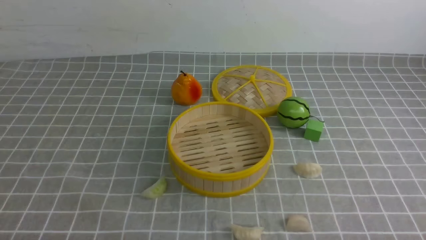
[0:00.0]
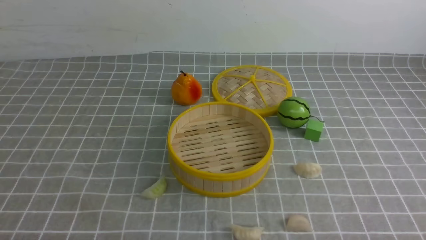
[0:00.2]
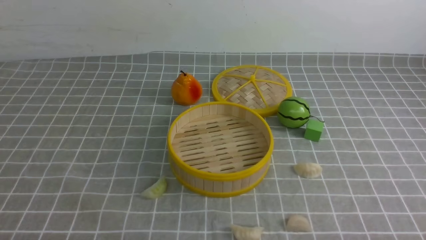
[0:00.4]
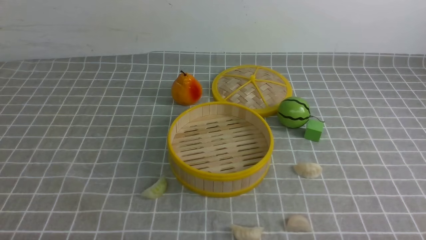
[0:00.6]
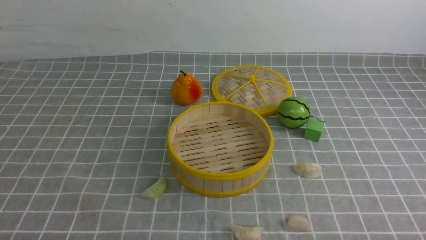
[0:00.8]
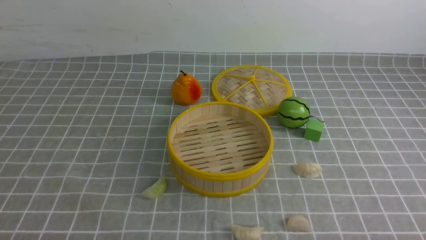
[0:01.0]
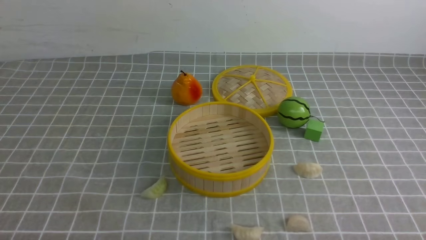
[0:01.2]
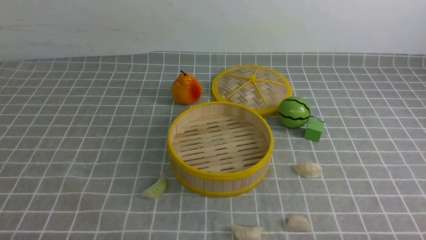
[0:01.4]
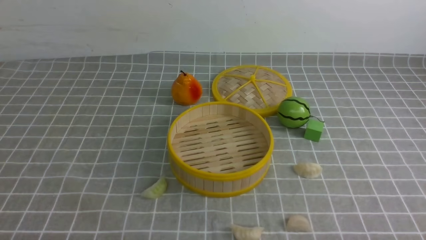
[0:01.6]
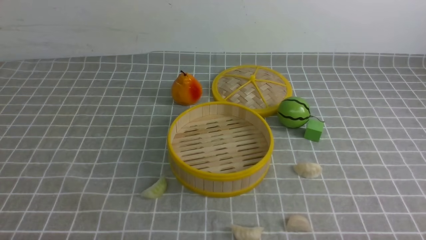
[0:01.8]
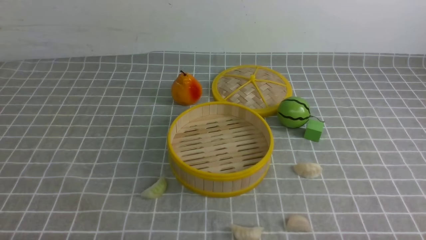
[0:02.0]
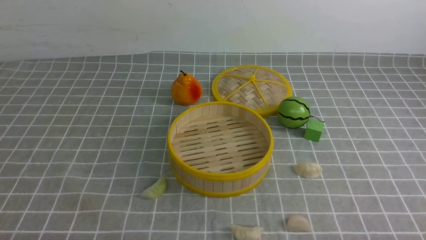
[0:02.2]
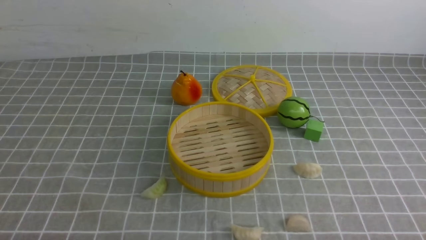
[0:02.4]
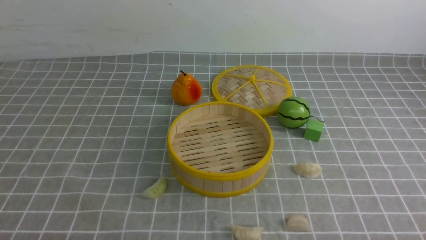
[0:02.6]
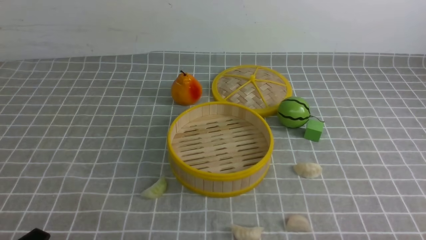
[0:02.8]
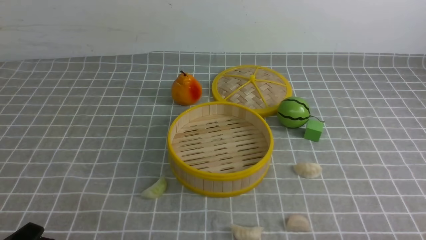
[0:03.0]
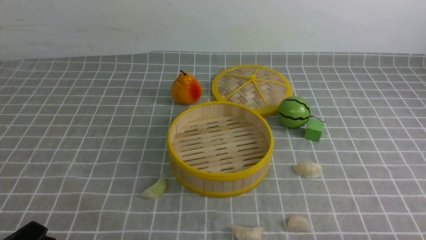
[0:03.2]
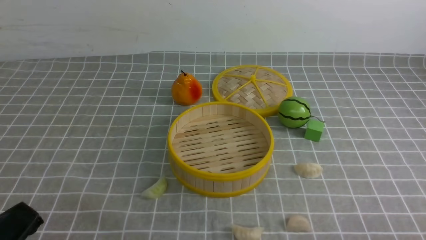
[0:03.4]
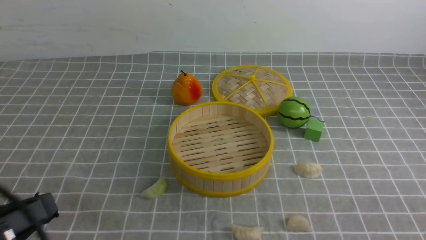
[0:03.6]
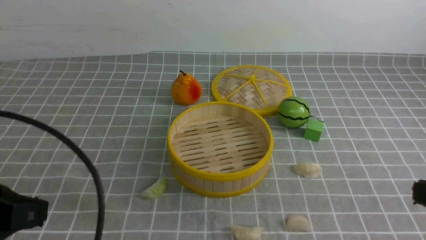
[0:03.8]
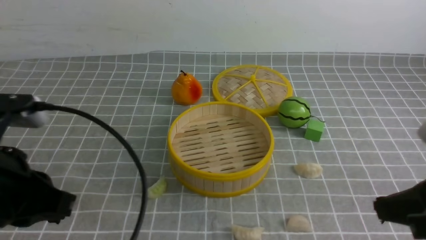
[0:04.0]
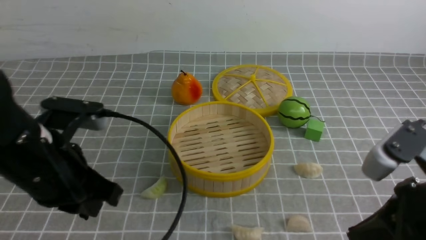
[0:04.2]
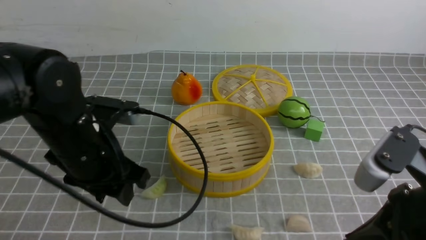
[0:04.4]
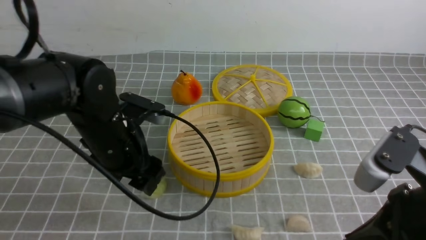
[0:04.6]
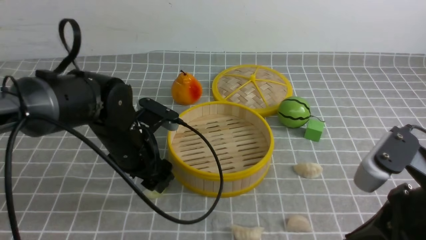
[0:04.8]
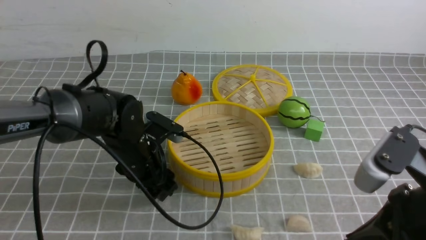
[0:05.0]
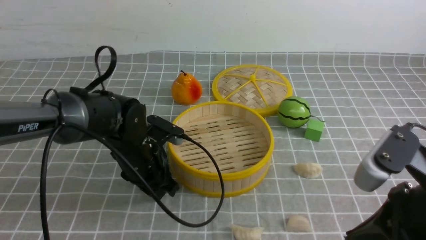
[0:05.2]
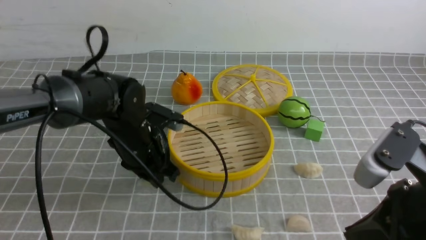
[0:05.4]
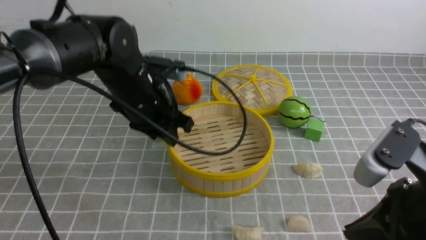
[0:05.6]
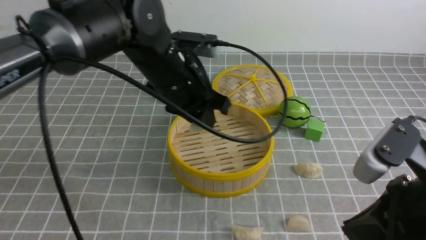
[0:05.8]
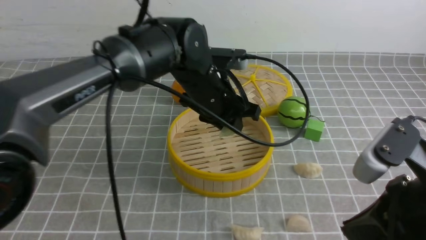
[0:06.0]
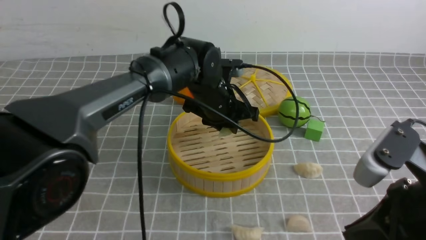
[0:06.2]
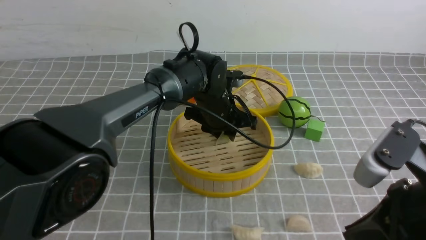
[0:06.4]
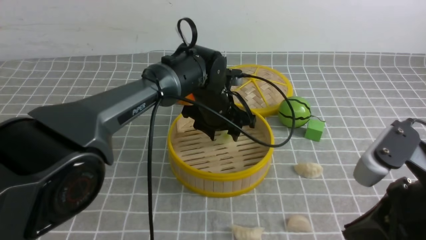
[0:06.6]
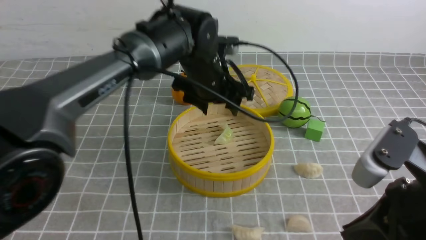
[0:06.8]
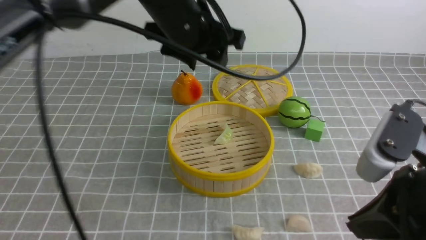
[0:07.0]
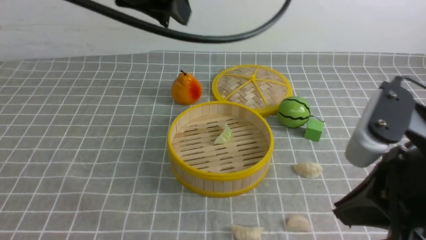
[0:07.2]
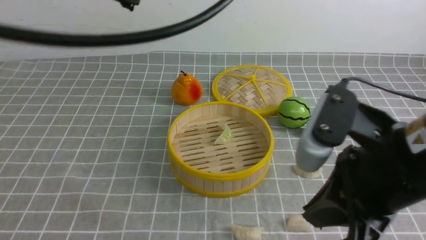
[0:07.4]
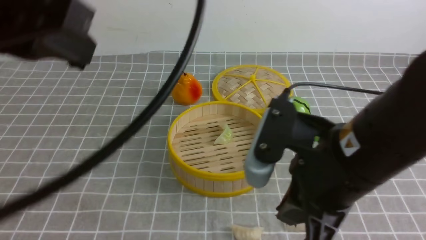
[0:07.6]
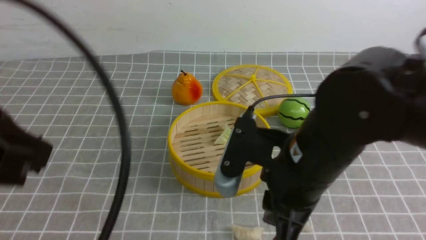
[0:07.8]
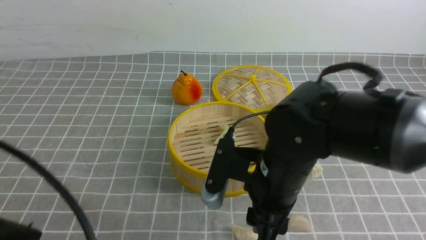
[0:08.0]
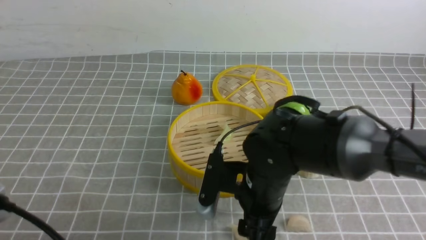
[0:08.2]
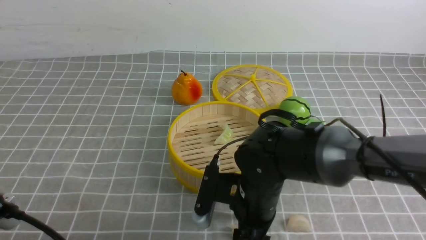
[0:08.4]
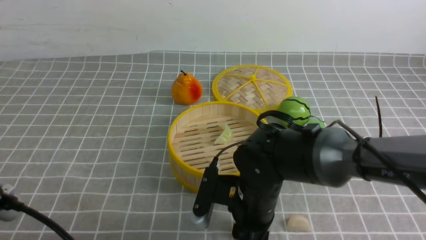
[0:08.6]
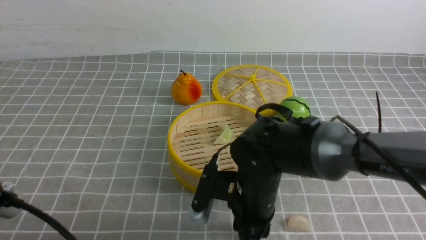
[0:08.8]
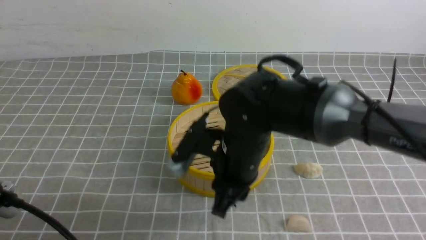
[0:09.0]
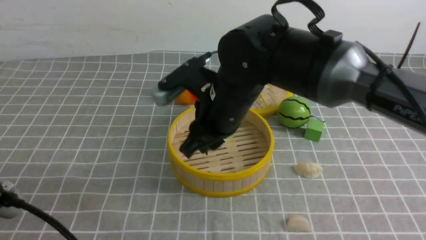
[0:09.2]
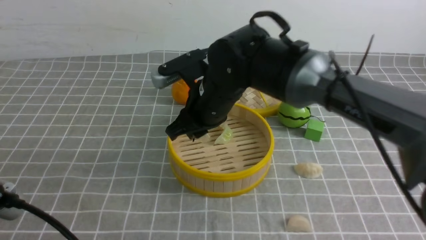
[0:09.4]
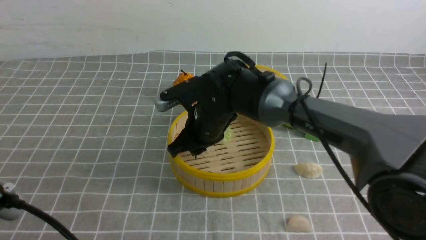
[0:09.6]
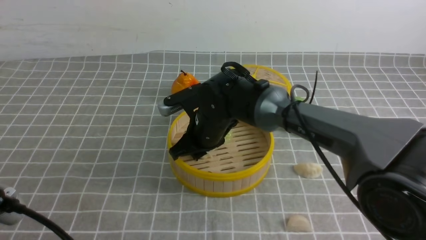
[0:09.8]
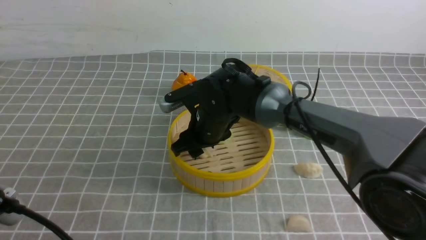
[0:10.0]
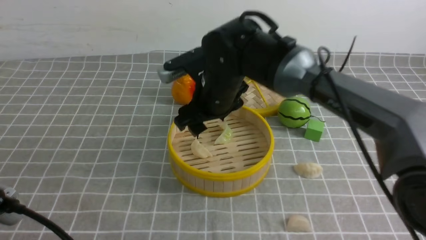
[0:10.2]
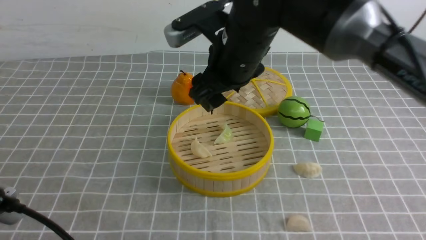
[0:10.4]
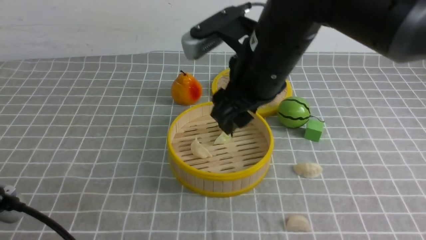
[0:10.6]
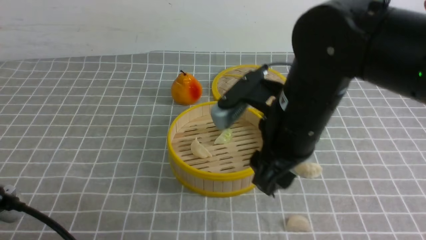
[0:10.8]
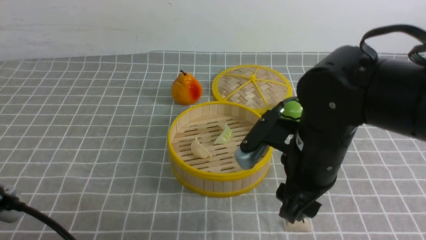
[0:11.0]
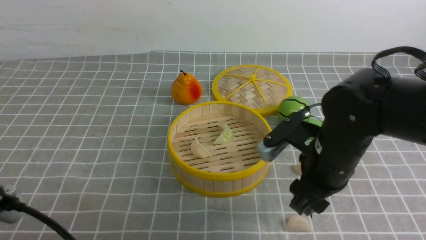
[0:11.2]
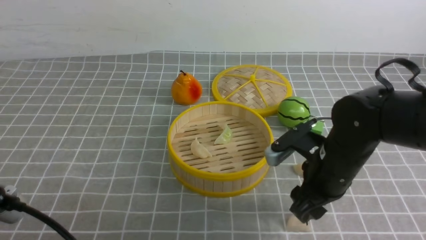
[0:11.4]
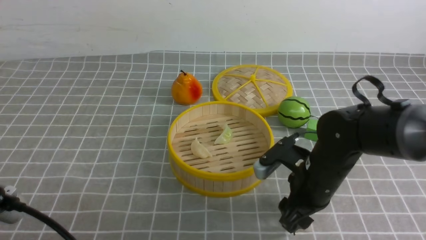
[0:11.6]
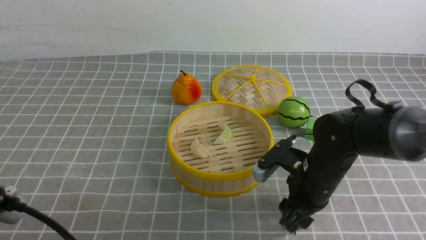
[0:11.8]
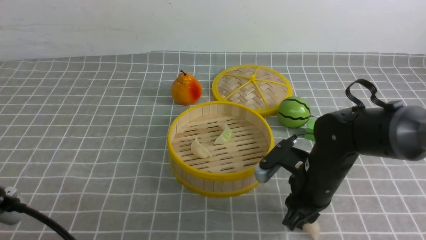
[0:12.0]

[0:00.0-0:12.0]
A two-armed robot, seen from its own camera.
Task of the whole recording: put the dumplings into the steamer on the table with the grey tablecloth.
Step, 0:00.0 to 0:05.2: use the left arm to grab a dumpling.
Step, 0:05.4 to 0:06.8: use the left arm to put the dumpling into the steamer.
Step, 0:07.0 to 0:08.8: use the right arm to grab a dumpling.
Step, 0:09.0 to 0:10.2: use the right arm to put the dumpling into the steamer.
0:00.0 to 0:01.6: Neither gripper changes place.
0:03.0 to 0:04.4: The right gripper is displaced upward, forward and to the left by about 15 cm, and closes its fingers, while the left gripper travels forward and to the right by roughly 25 cm, and closes, then reopens.
0:04.4 to 0:06.0: The left gripper travels to the right and forward by approximately 20 cm.
0:06.0 to 0:07.6: The left gripper shifts about 35 cm backward, upward and to the left, and closes up, while the right gripper is displaced to the left by about 10 cm.
0:07.6 to 0:09.0: The left gripper travels downward and backward by approximately 20 cm. The right gripper is displaced forward, to the left and downward by roughly 15 cm, and opens, then closes again.
0:09.0 to 0:10.4: The right gripper shifts roughly 10 cm upward, and opens its fingers.
0:10.4 to 0:12.0: The right gripper heads downward and to the right, covering about 20 cm, and closes its fingers.

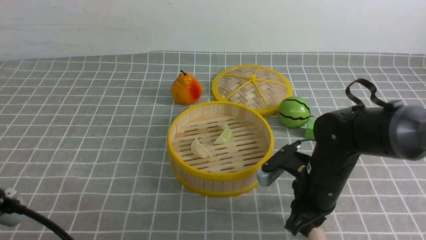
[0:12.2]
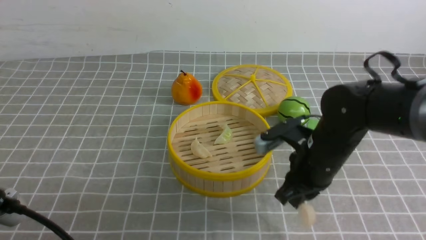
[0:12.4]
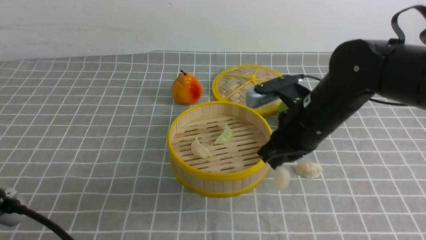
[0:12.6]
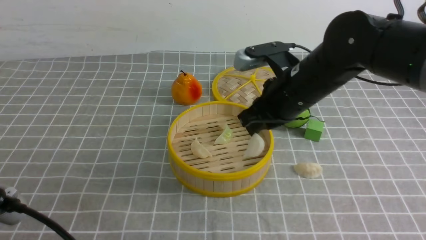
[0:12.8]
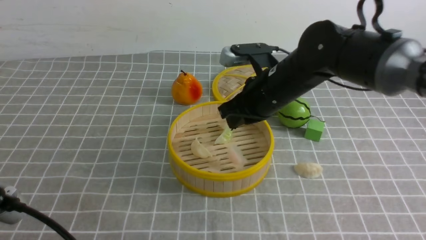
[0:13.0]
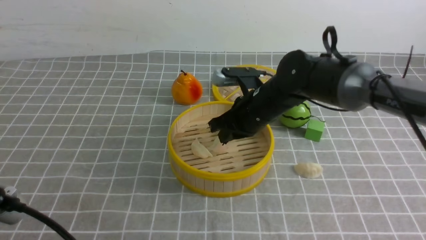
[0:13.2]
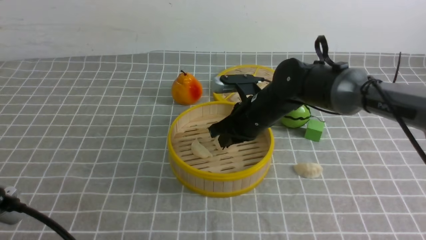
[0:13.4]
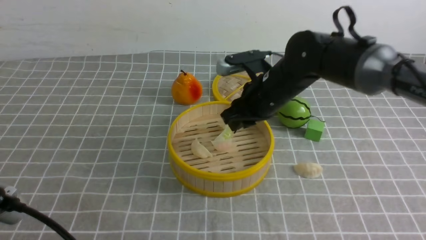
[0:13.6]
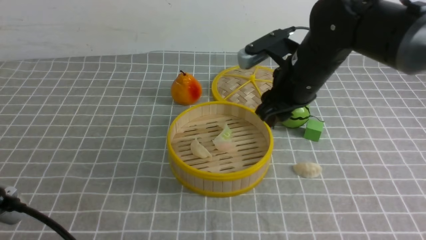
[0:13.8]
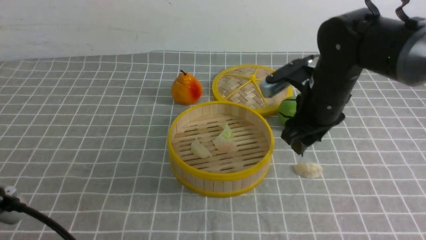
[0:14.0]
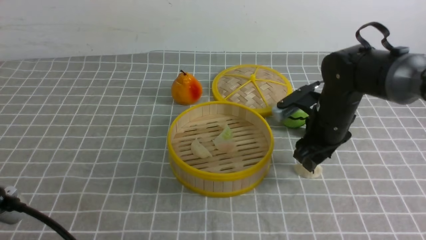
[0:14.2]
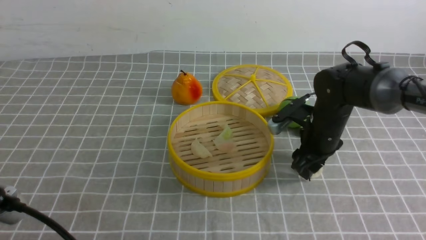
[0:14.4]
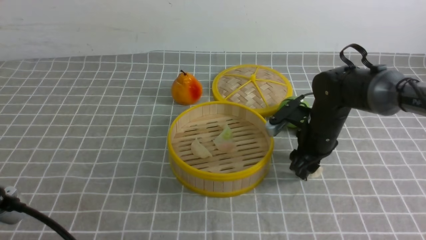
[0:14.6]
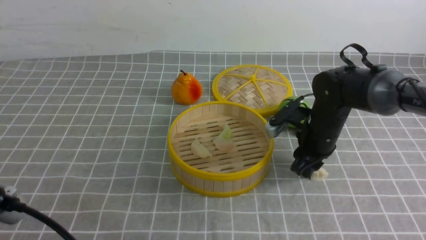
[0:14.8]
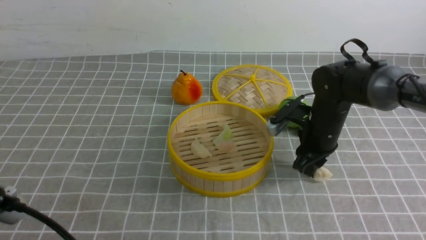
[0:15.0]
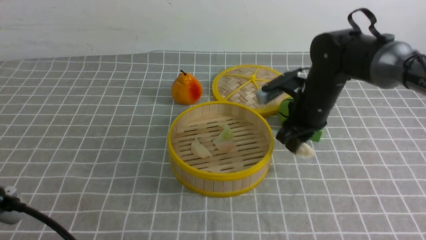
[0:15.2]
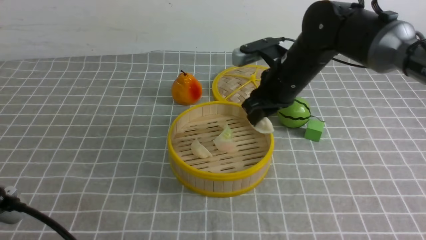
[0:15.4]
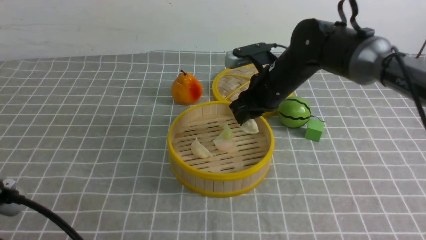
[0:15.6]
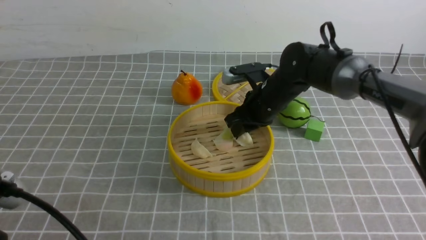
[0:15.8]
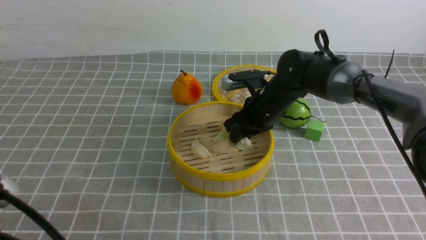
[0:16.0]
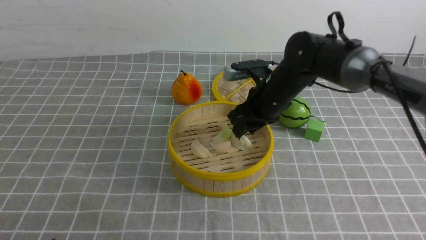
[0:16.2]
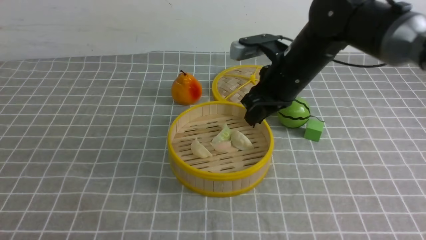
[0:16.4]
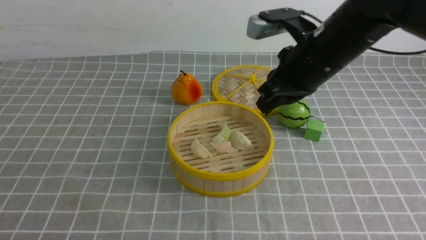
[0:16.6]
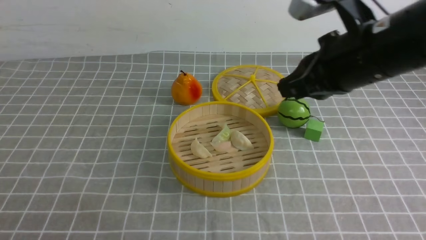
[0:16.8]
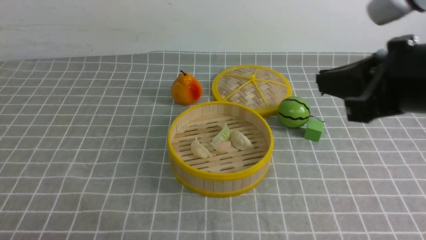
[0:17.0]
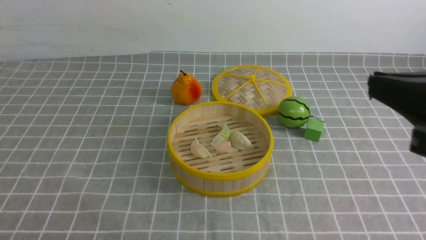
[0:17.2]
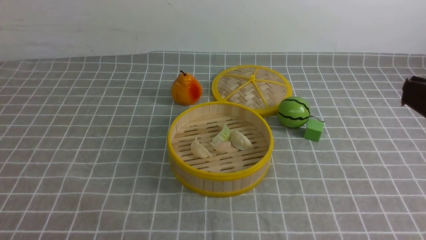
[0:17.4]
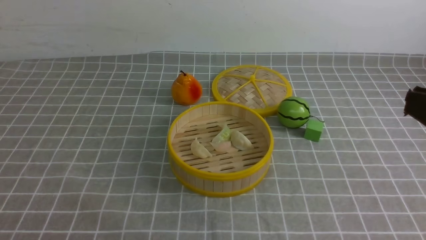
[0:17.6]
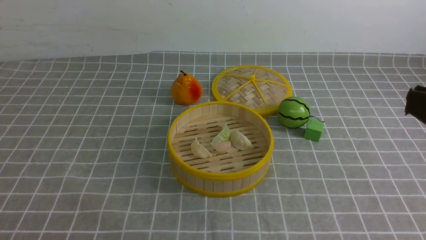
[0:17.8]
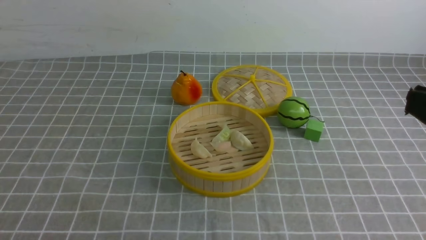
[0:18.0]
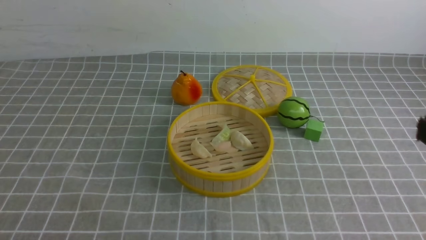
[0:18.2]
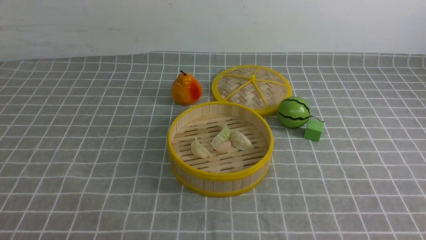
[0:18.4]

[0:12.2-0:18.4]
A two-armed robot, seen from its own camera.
Task of the whole recording: put the dumplings into the steamer on the table with the grey tablecloth.
Step, 0:12.4 to 0:13.4: use the right arm to put the dumpling into the steamer.
Step, 0:13.6 to 0:15.0: use the right arm to grab a dumpling.
Step, 0:15.2 to 0:16.2: use the right arm to put the dumpling into the steamer.
0:12.2 to 0:13.8: The right gripper heads upward and forward, covering some 15 cm, and opens its fingers.
0:13.8 to 0:15.4: The right gripper reaches approximately 10 cm downward, then returns.
0:15.4 to 0:16.8: The left gripper is displaced backward by roughly 5 cm. Meanwhile the right gripper travels backward and upward by some 20 cm, and closes up.
0:16.8 to 0:18.4: The right gripper shifts some 25 cm backward, to the right and downward.
